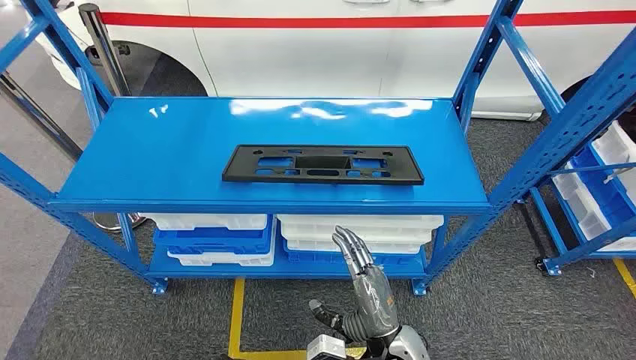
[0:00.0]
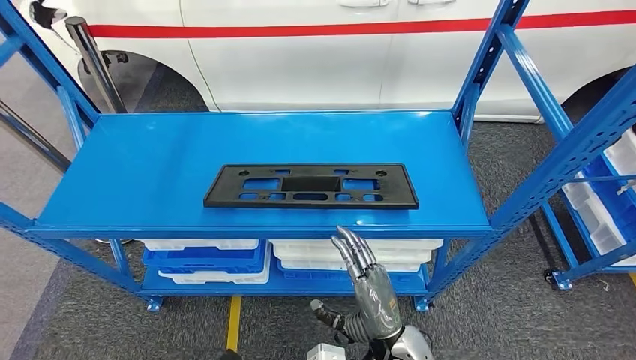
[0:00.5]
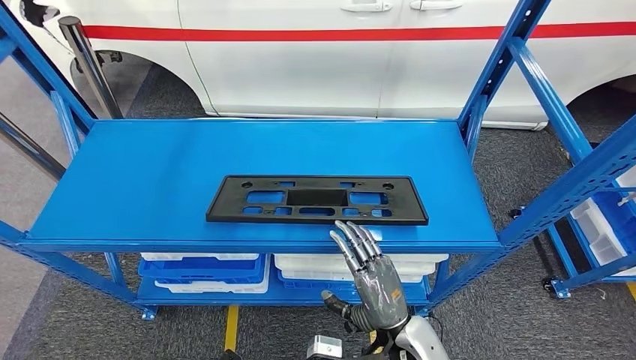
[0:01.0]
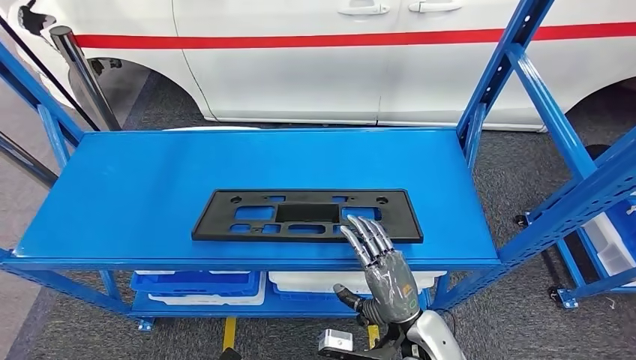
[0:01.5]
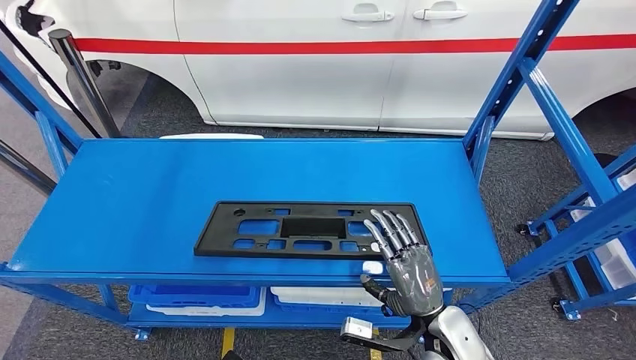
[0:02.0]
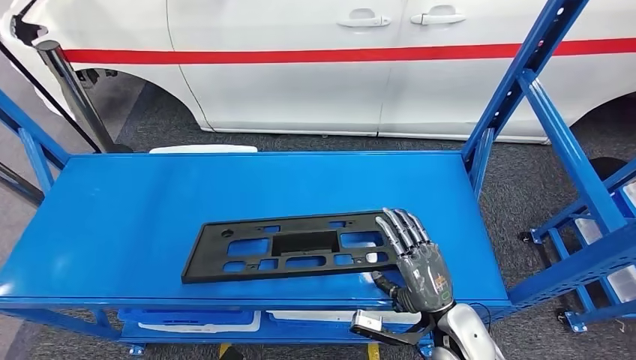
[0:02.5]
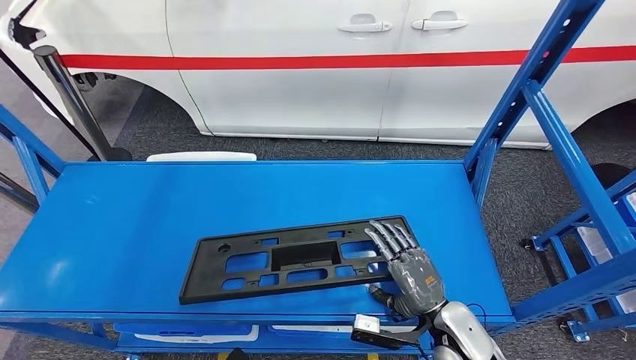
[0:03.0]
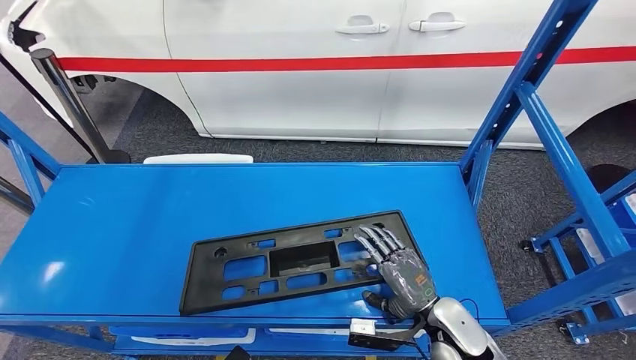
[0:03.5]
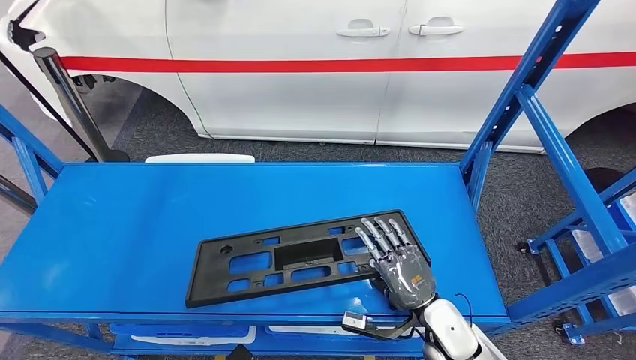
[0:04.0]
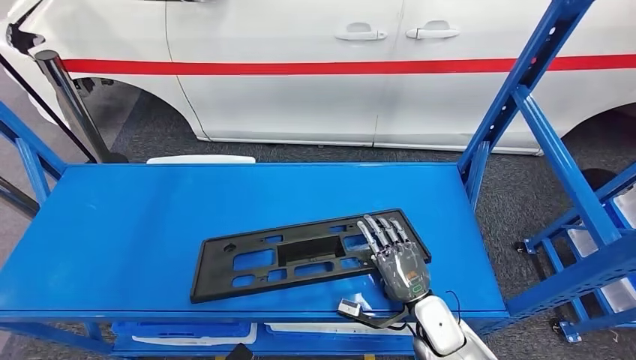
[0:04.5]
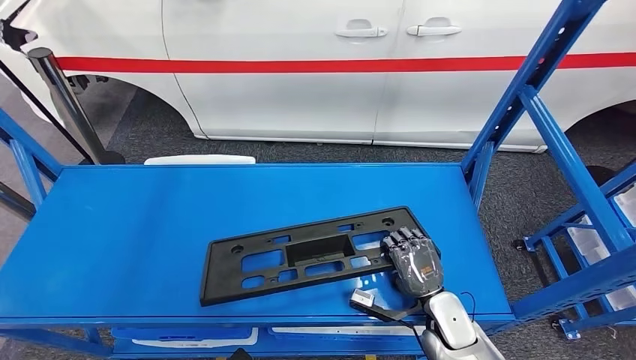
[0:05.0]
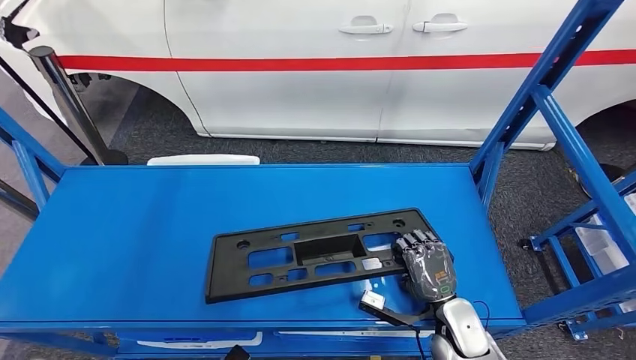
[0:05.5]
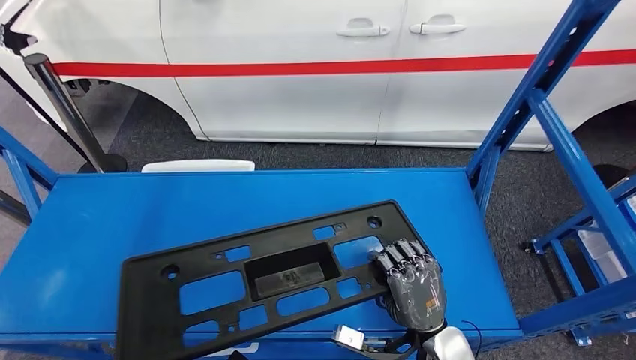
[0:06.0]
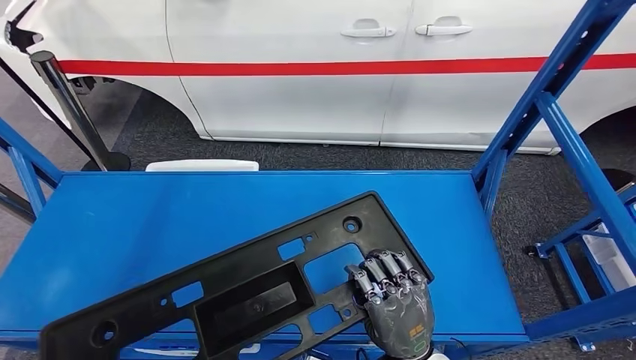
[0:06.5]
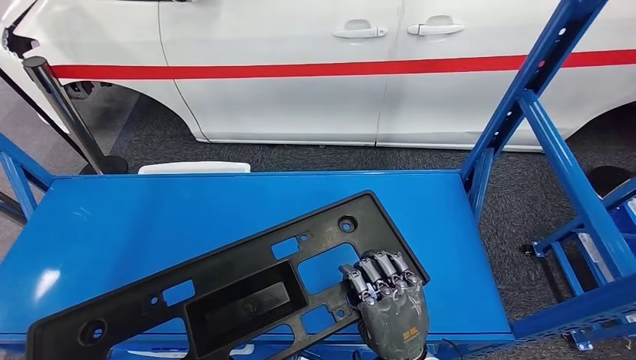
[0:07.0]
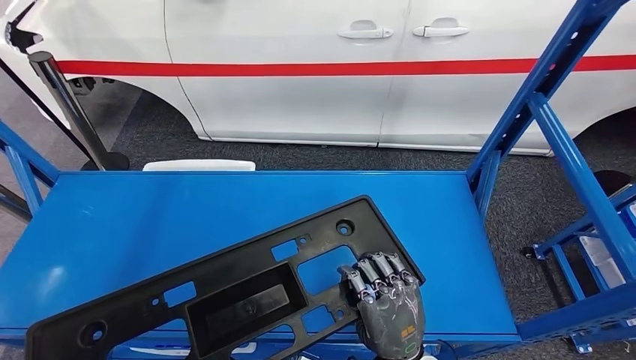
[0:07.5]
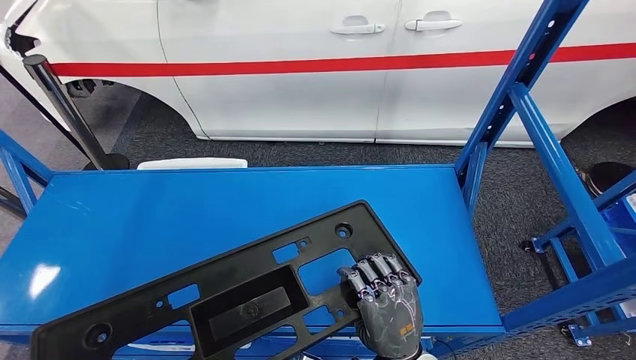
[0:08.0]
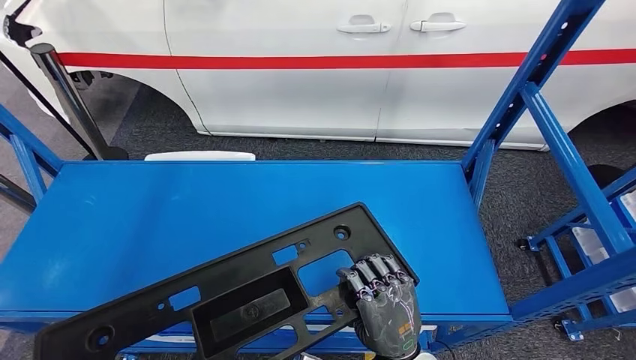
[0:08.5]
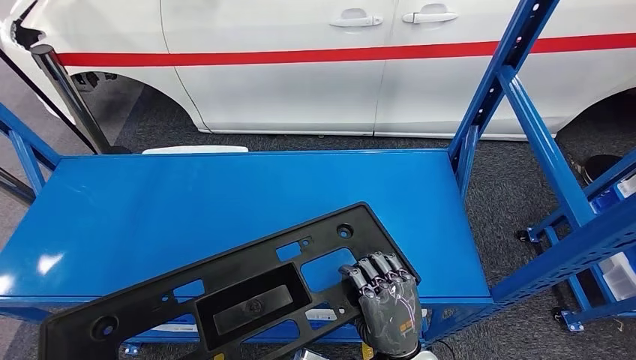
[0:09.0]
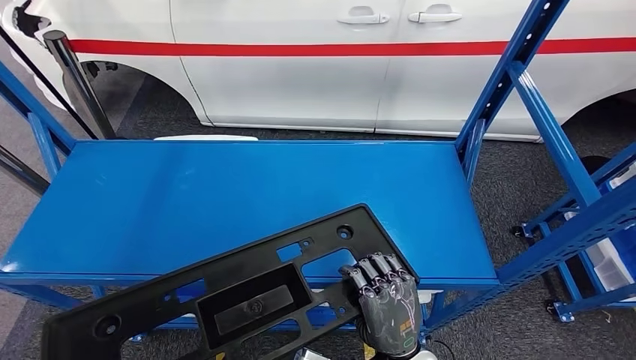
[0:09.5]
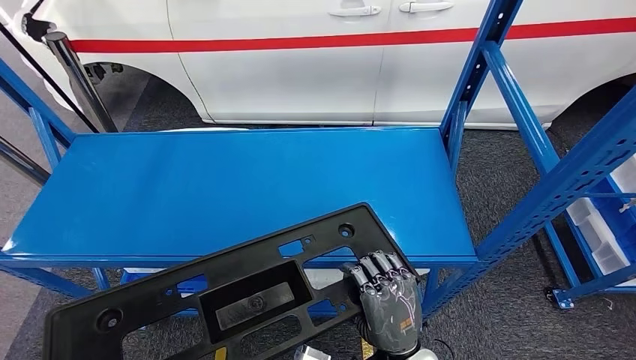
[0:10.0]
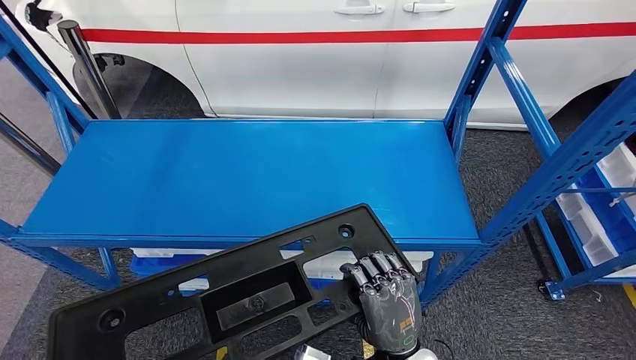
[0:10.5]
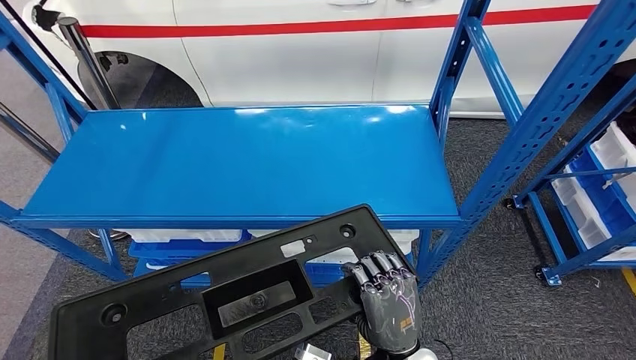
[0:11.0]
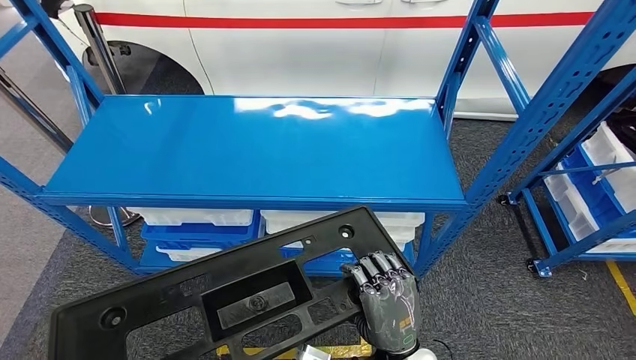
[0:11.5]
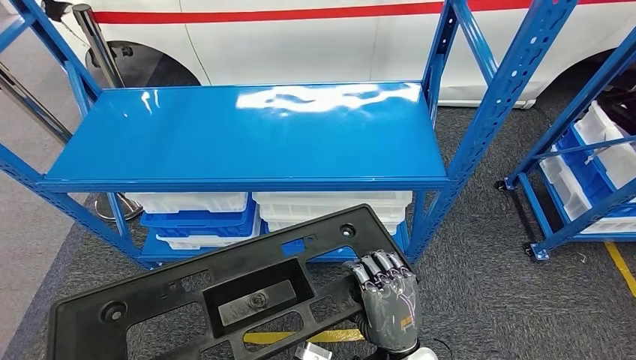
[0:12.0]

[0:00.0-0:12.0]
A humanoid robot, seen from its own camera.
Step, 0:00.0 to 0:11.5: Pick up the large material from the shelf.

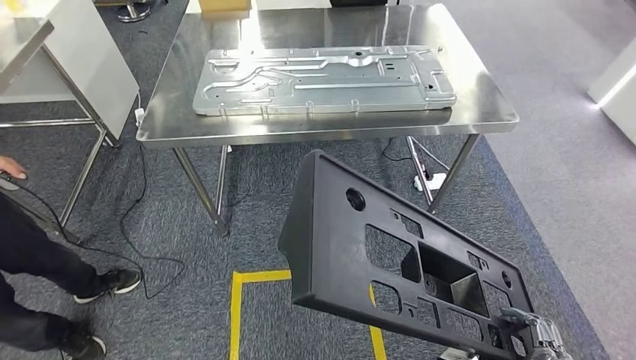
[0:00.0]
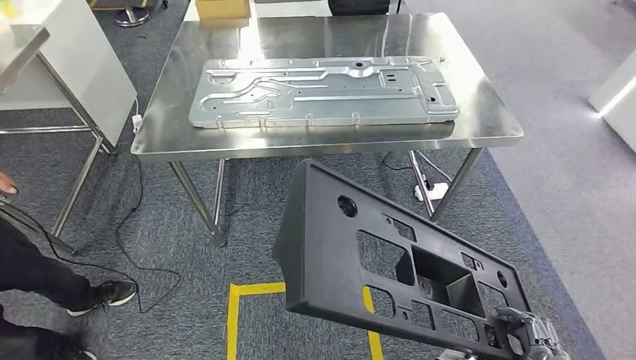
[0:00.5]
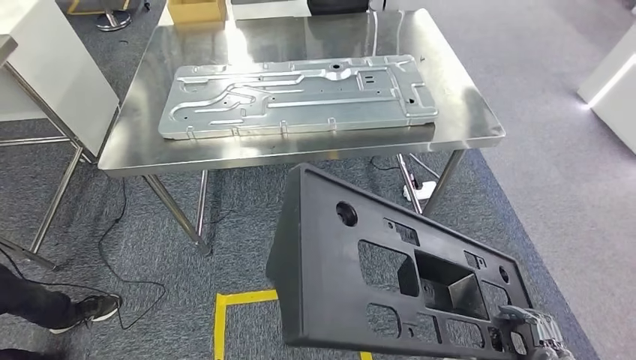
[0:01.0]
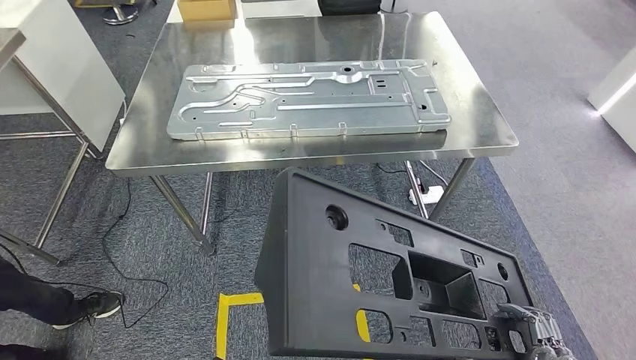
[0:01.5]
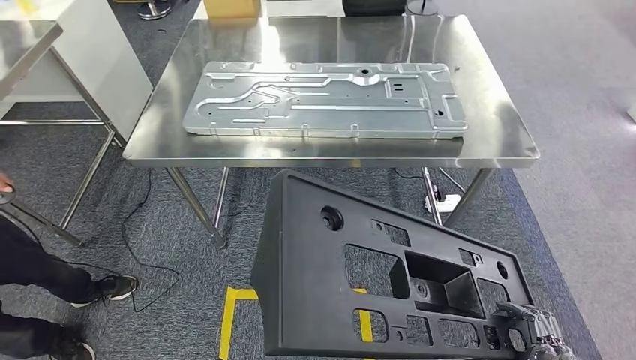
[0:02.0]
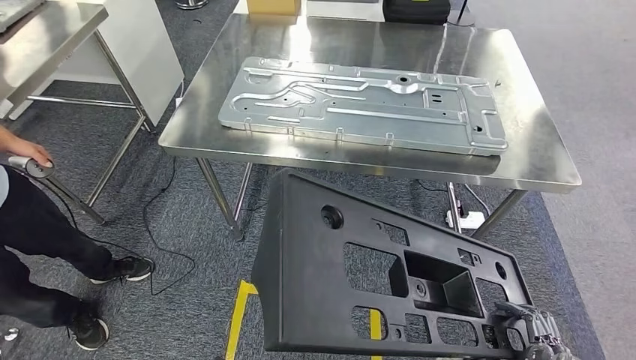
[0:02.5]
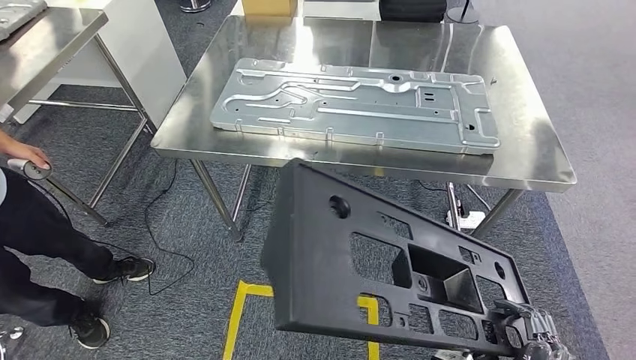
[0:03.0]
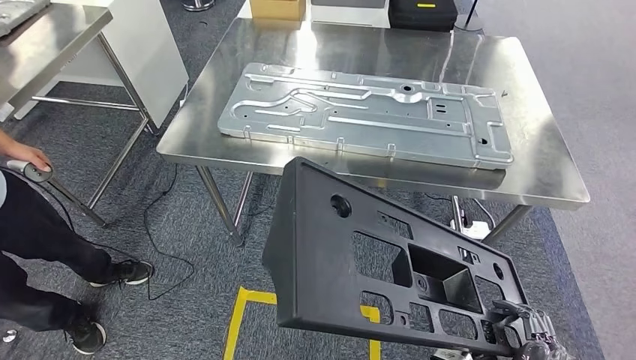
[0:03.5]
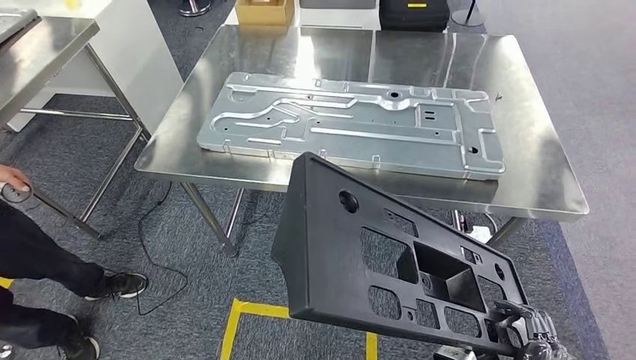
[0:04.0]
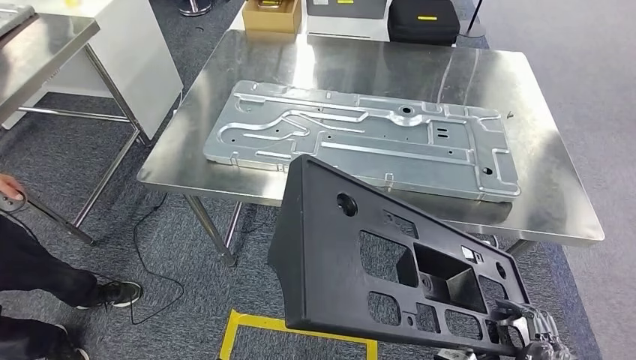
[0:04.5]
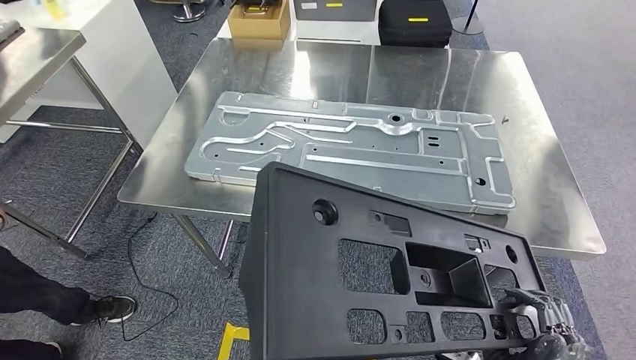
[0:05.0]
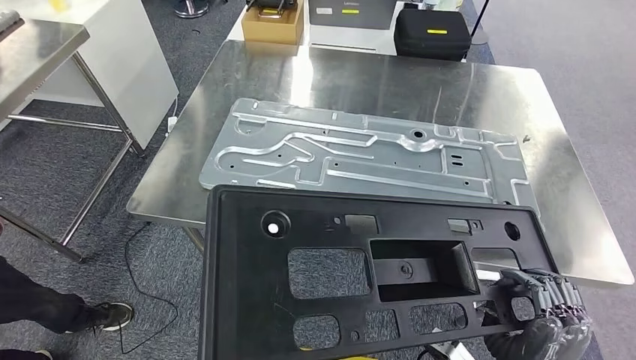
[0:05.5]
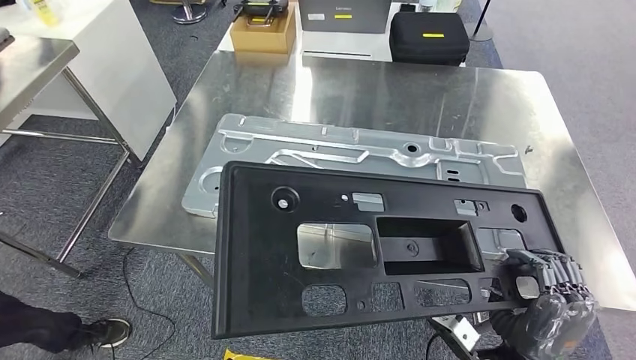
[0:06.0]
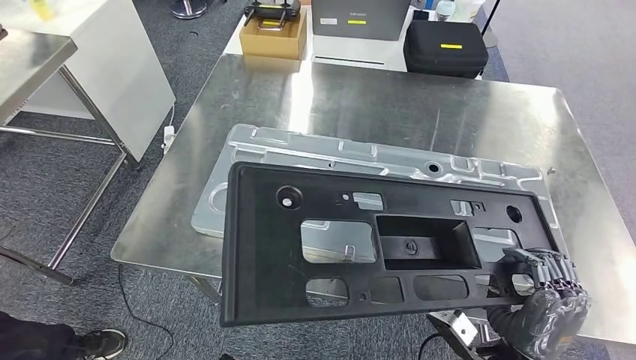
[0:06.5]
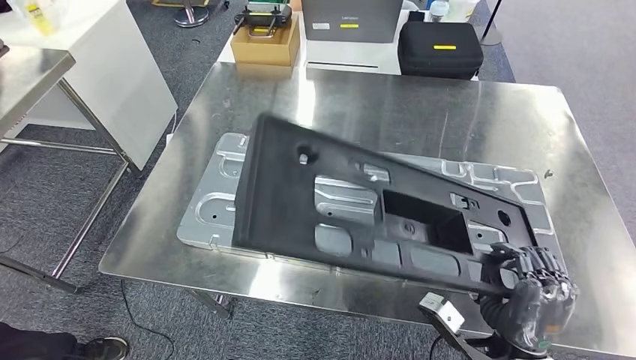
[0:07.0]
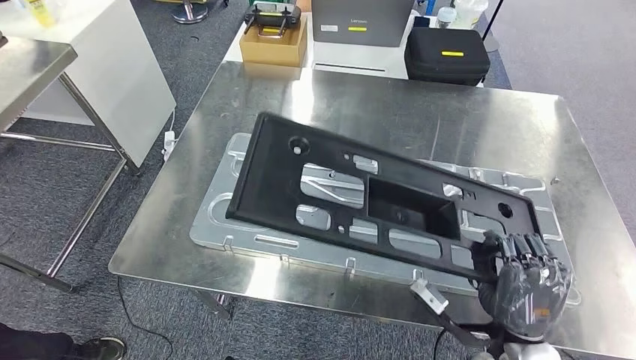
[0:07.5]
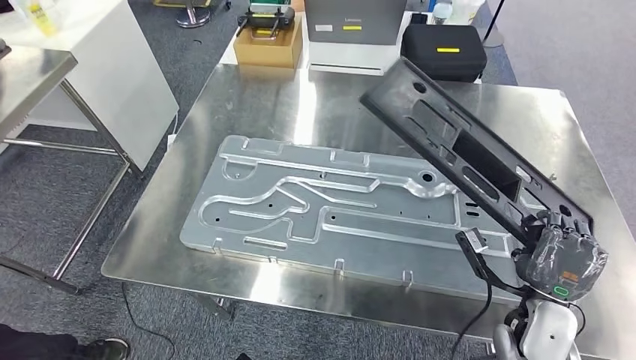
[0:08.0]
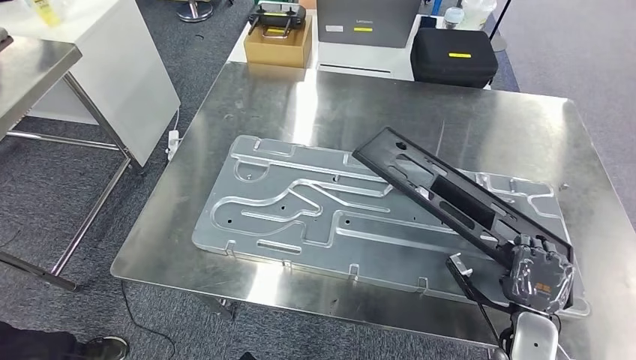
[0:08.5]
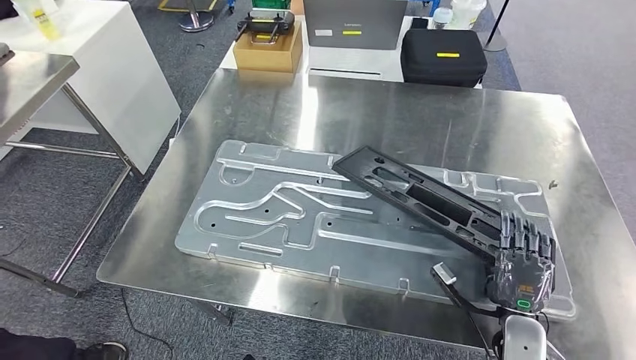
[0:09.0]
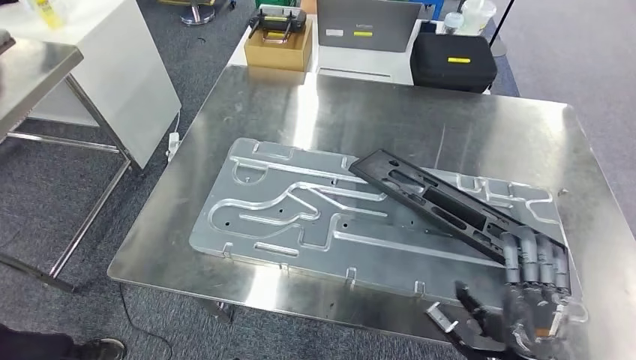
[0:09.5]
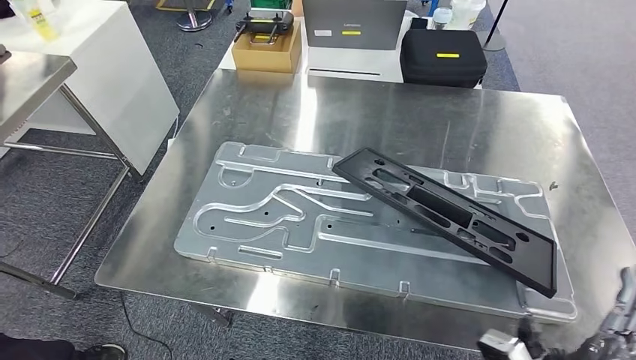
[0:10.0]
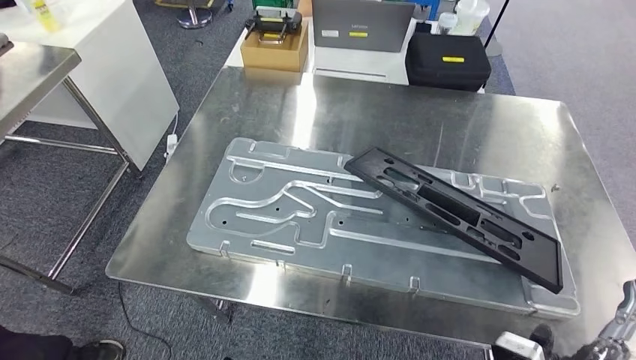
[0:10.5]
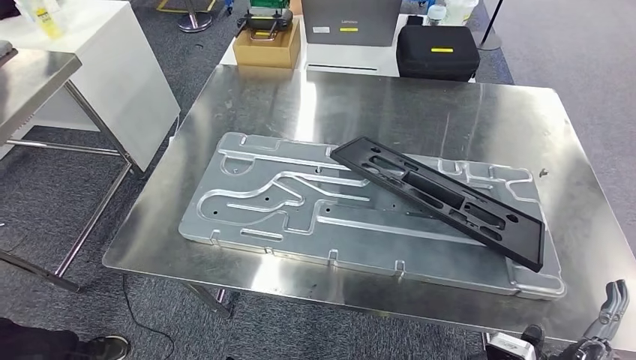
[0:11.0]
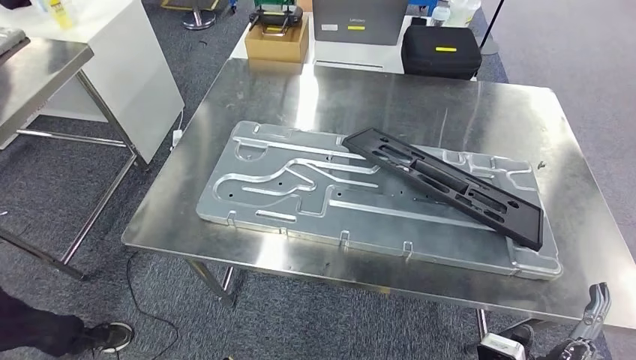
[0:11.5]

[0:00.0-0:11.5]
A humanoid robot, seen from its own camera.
Step, 0:00.0 to 0:03.0: Move the large material to the workbench.
